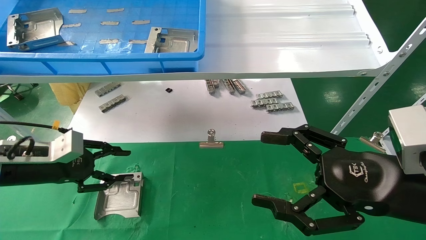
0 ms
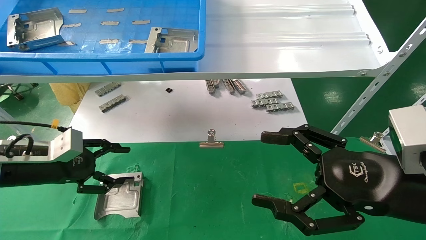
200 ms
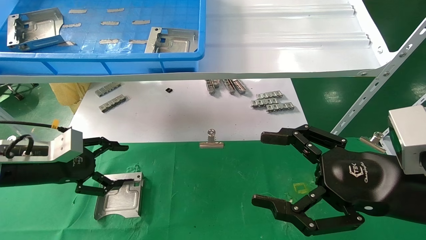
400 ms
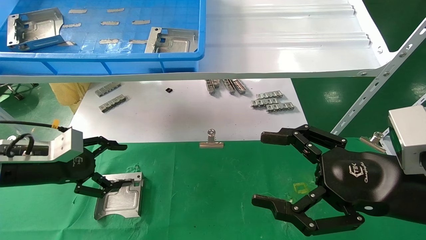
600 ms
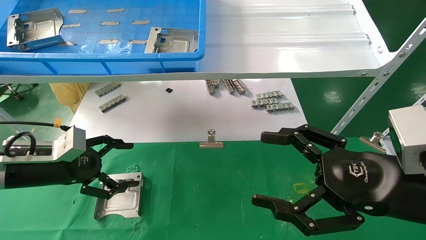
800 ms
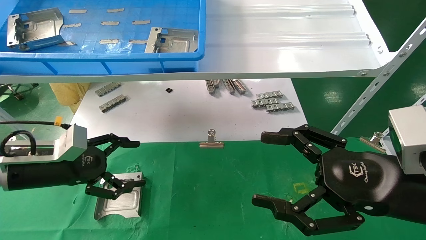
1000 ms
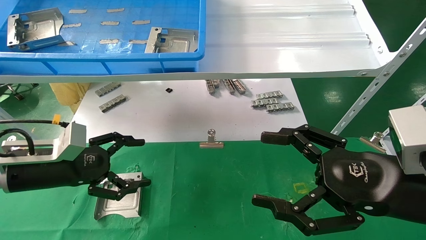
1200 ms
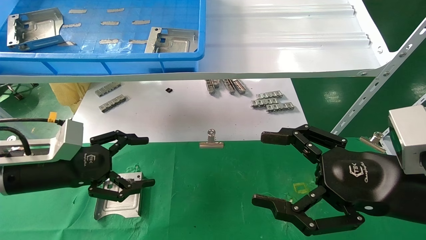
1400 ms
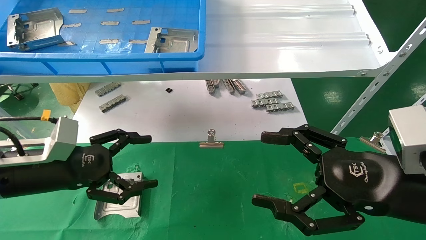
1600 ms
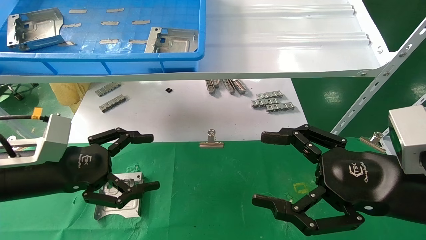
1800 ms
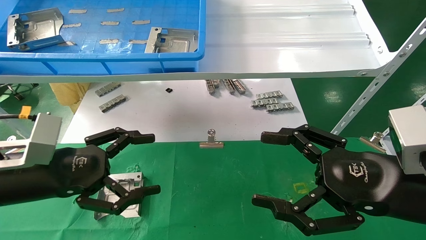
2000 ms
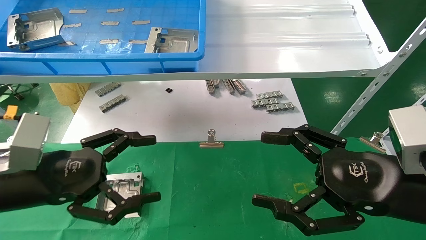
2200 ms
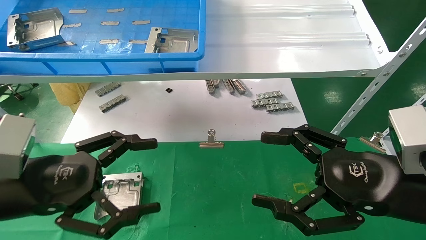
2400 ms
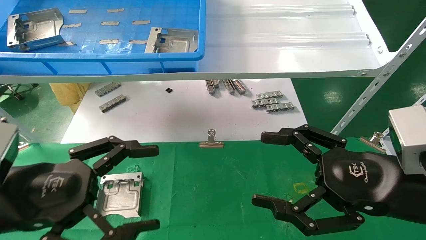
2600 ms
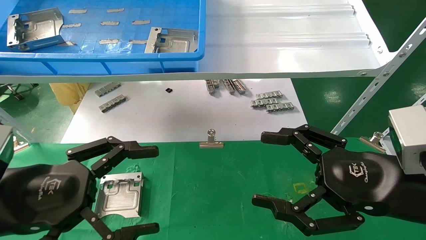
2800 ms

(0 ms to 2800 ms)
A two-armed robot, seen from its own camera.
Task of the whole recording: use the mechanical arm to pick up the parts and place them on the table.
0 ms - 1400 ms: The left gripper moves roughly 5 cm, and opens.
1400 ms - 2800 ms: The left gripper goes about 10 cm backward.

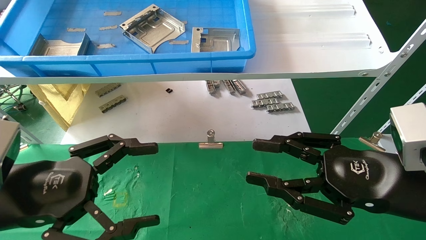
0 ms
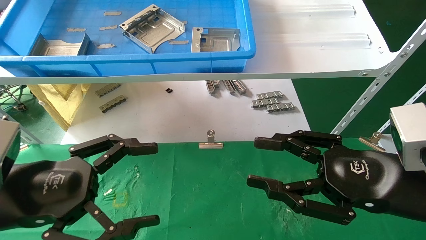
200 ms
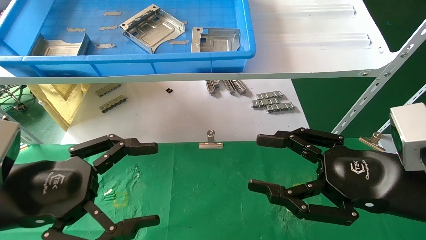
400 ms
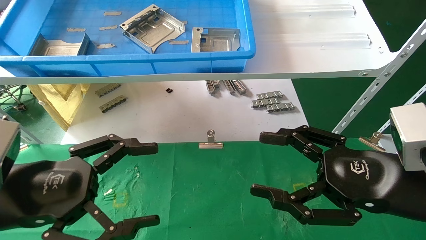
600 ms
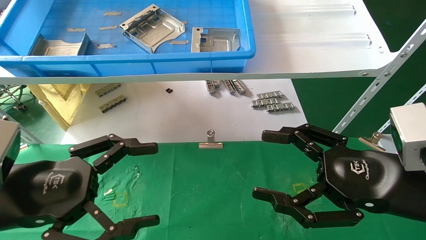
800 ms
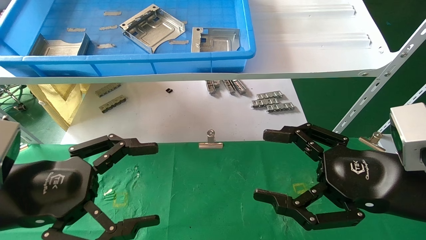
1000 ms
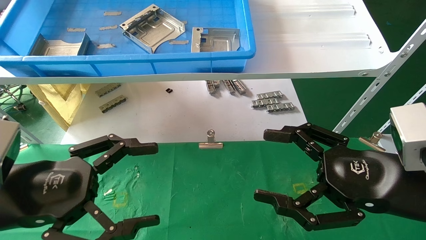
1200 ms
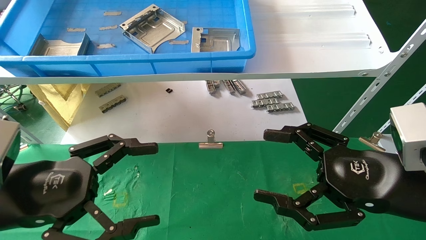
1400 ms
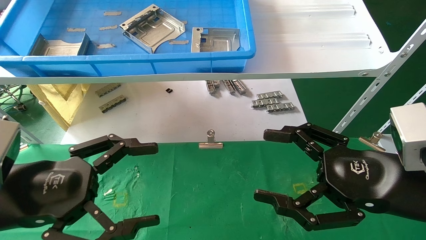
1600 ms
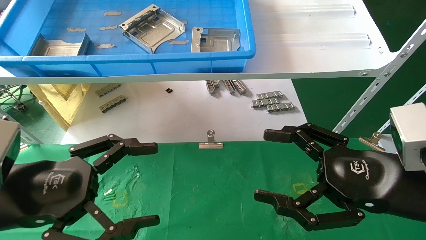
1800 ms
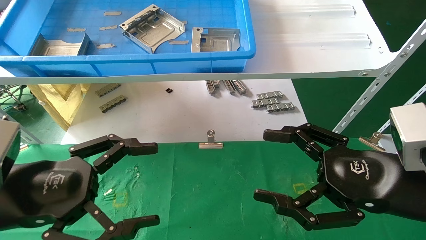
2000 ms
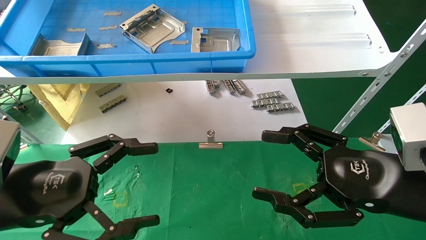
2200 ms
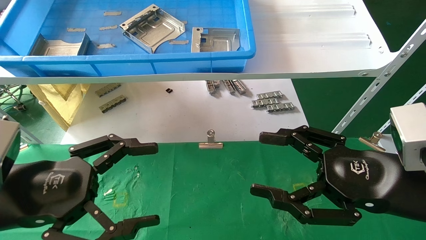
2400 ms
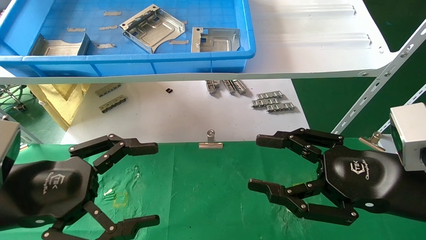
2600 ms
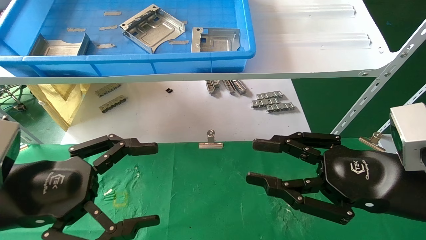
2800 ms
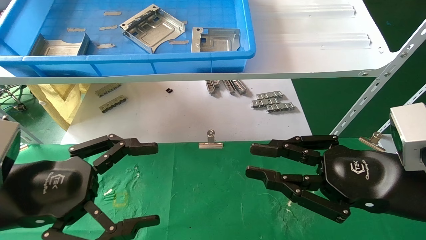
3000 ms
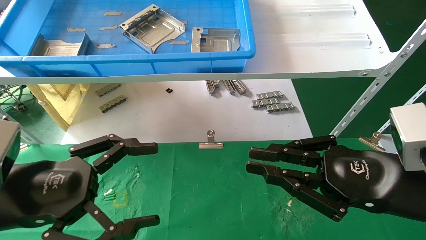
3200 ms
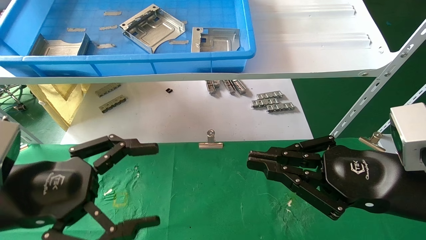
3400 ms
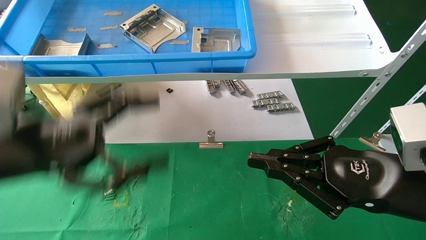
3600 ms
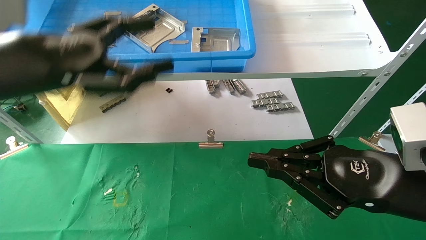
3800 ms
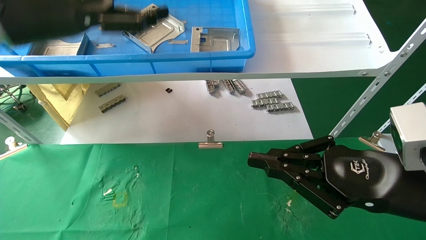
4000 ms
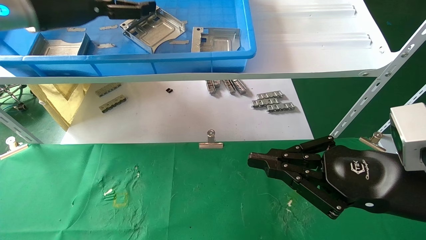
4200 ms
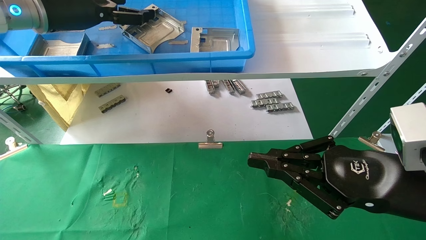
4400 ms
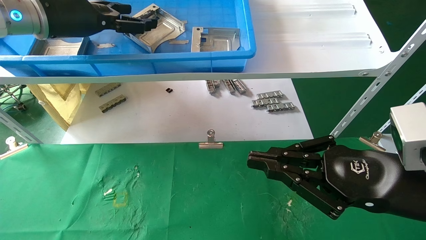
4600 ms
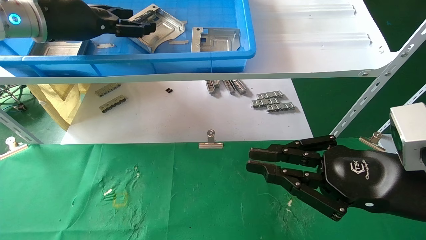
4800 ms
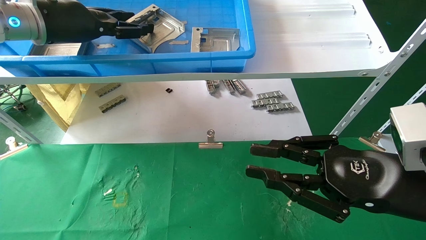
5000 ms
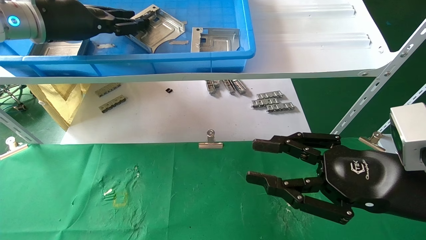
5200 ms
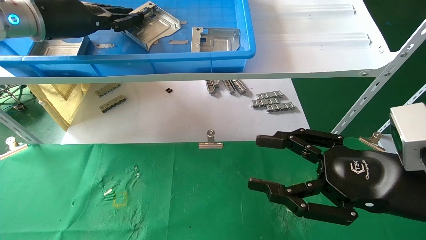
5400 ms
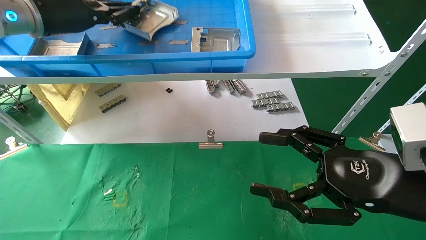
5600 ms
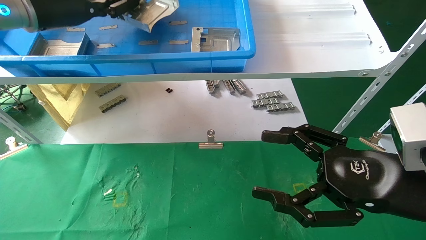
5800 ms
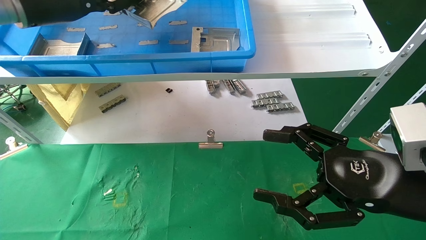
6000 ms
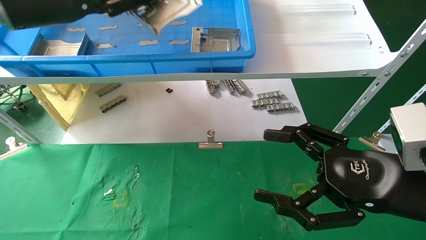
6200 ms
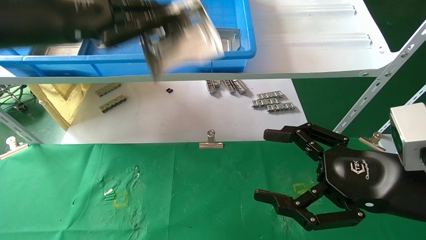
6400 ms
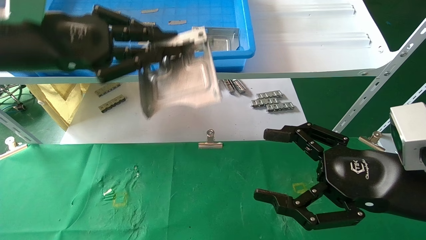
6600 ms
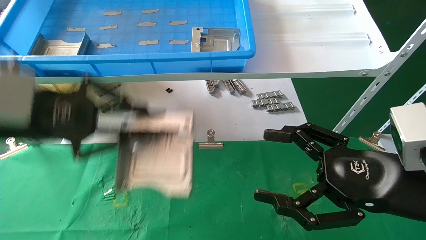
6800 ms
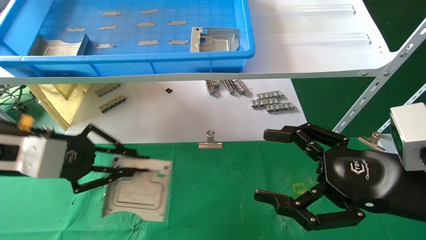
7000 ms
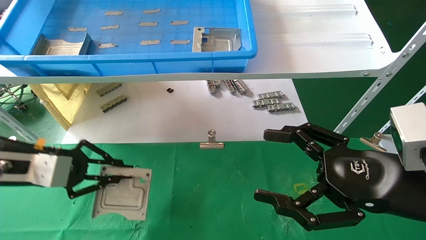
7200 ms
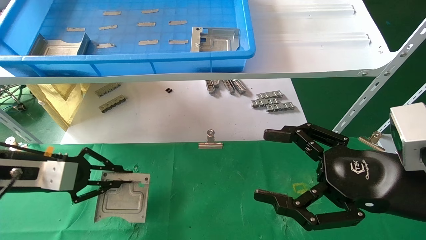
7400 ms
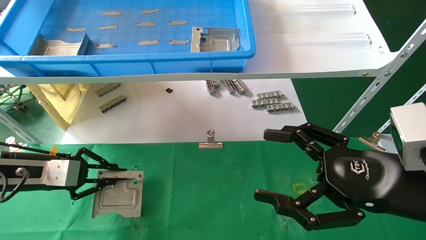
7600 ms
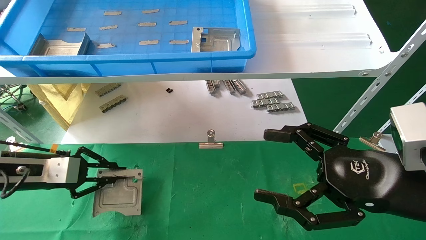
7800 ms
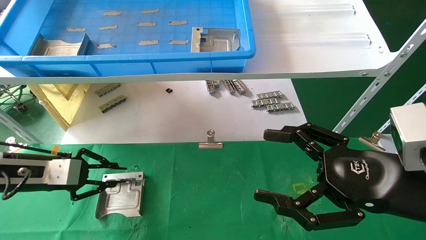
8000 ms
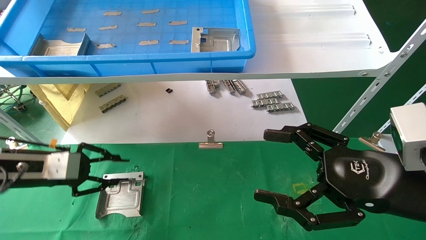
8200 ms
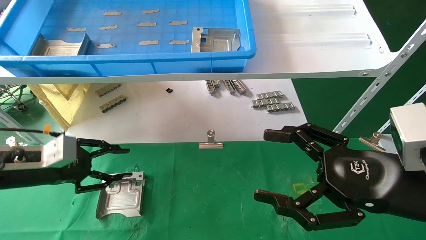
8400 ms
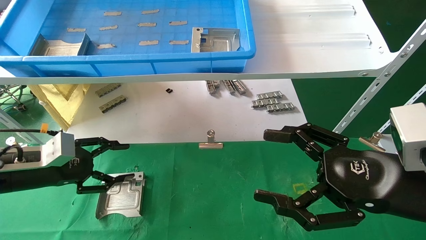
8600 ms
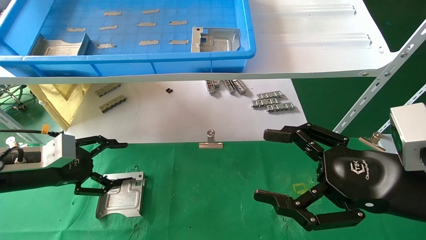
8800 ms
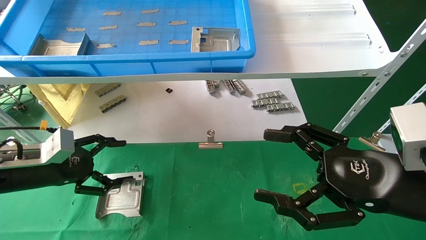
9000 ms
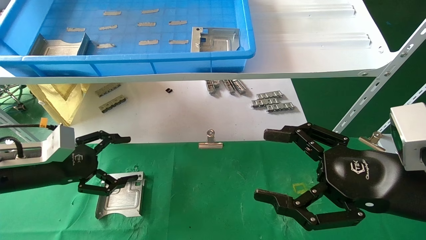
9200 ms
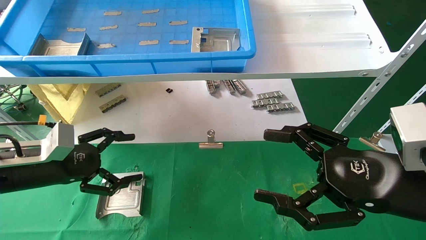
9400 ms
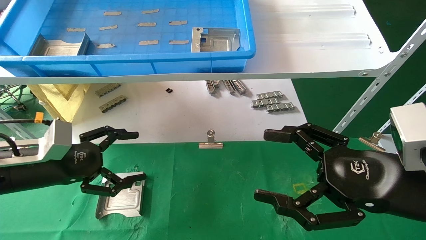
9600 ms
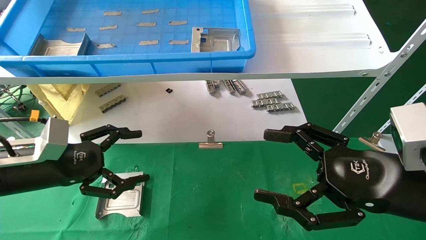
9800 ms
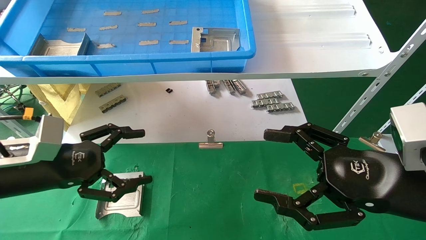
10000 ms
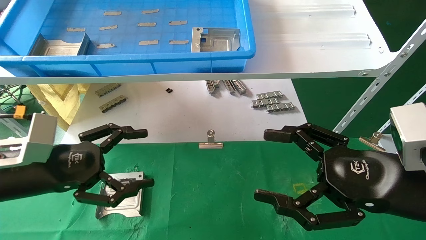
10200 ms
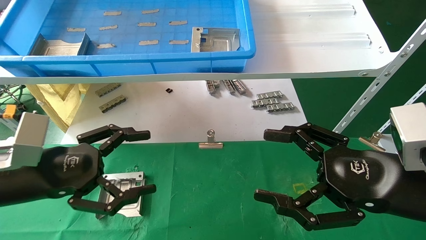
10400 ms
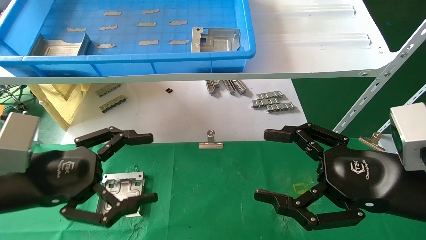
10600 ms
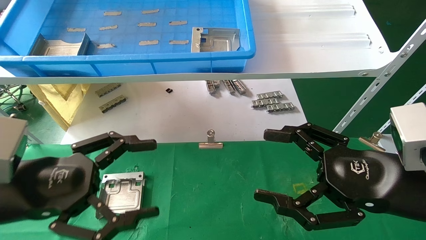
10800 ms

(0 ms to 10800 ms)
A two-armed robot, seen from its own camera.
Task of the whole recording: use the mechanical arm to pick up the parts and place them on the table.
Step, 3800 ms - 5600 ms: Pick up the hard drive bracket from the feeding area.
Step, 5800 ms - 8000 ms: Place the hard drive bracket into the box.
0 ms - 1600 ms: The right gripper opens up.
1600 ms - 3000 ms: The right gripper closes its fingers.
3000 ms - 4600 ms: The right gripper closes its fingers; the left gripper shifts approximately 30 cm upward and forward.
4600 ms - 6200 ms: The left gripper is displaced backward by about 5 cm, and closes its fingers; the right gripper opens.
6200 ms - 7800 ms: The left gripper is displaced downward by approximately 25 cm.
7800 ms - 9200 ms: The left gripper opens its fingers.
9200 ms - 10800 ms: The left gripper shifts some 15 cm backward and to the right.

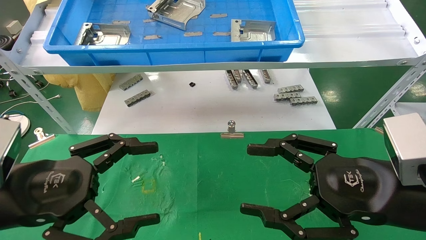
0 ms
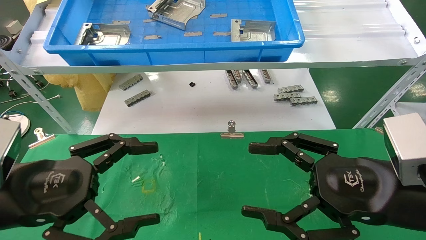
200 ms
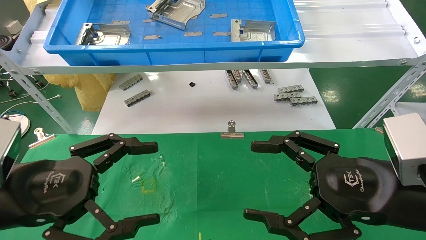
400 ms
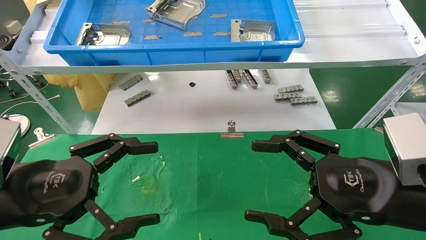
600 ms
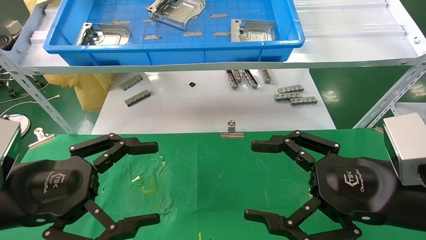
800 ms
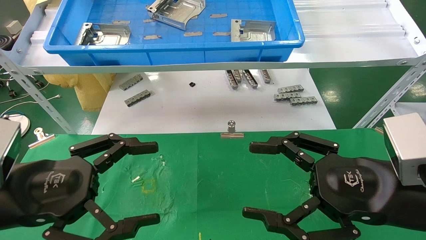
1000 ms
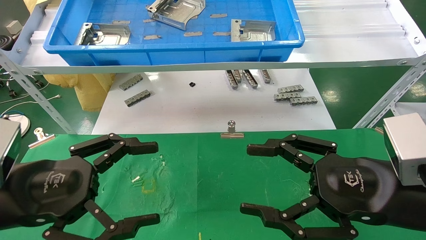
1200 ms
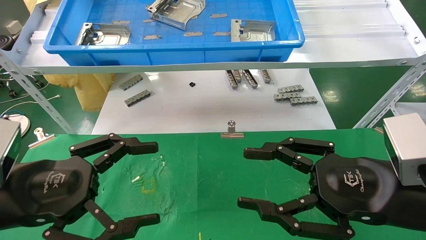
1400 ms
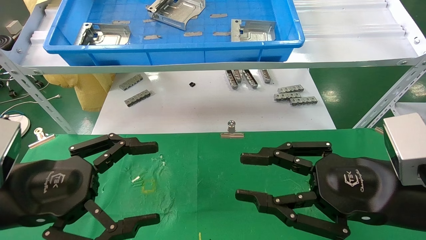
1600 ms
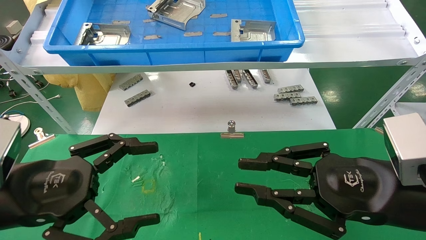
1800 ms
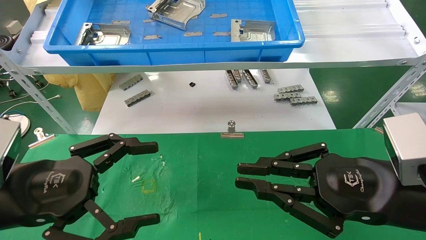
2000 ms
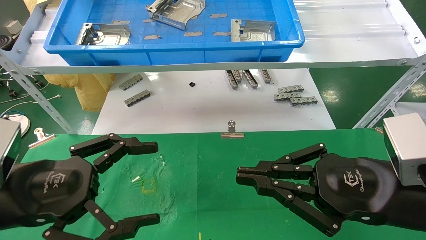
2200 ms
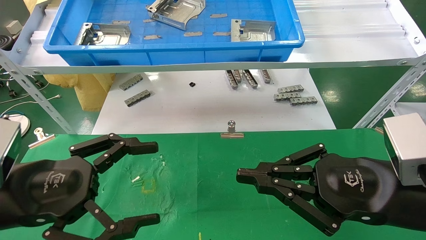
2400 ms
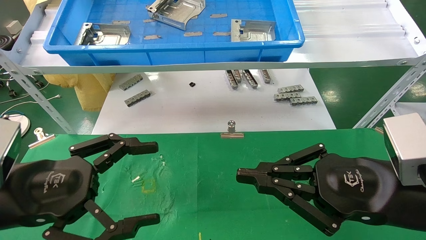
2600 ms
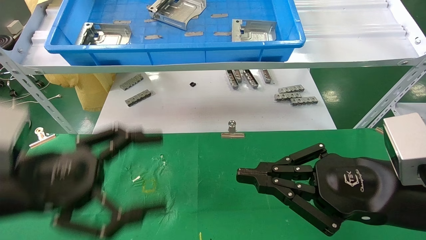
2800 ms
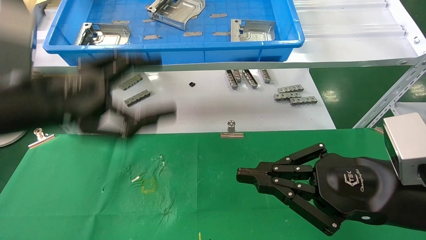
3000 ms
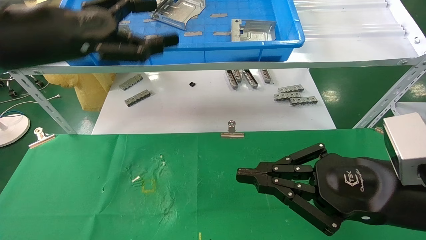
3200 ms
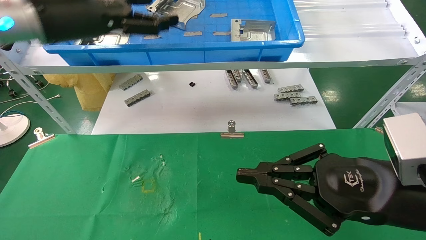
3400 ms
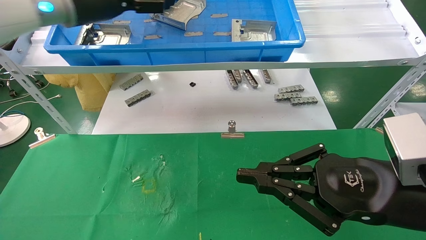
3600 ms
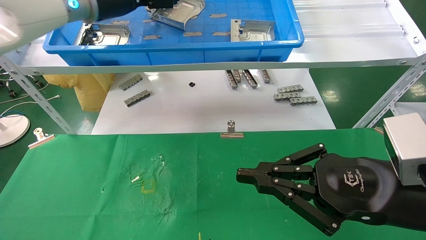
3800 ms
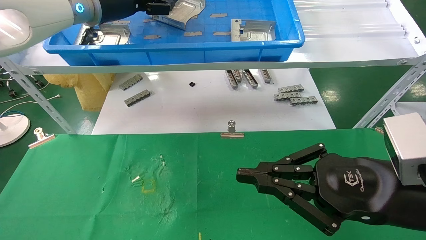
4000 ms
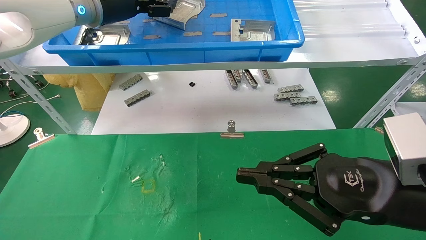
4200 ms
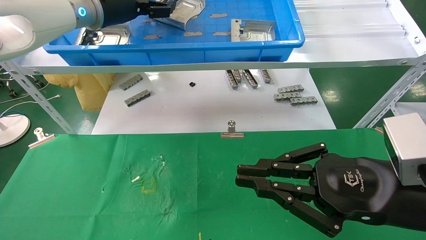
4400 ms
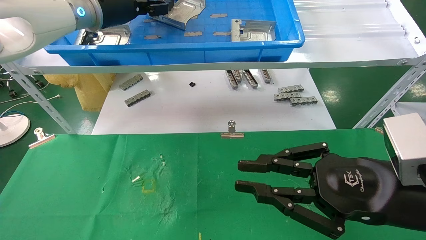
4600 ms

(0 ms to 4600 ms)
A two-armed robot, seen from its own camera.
Task of the whole recording: use the mechanical arm to pick up the parts and place them on the table.
0 ms - 1600 ms: Both grippers stay about where they are.
1600 ms - 3000 ms: The left gripper heads upward and forward, covering roughly 10 cm. The right gripper closes its fingers.
3000 ms - 4600 ms: The left gripper is displaced forward and upward by about 25 cm.
